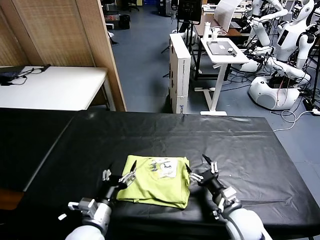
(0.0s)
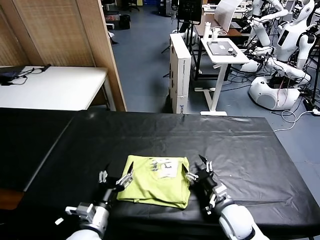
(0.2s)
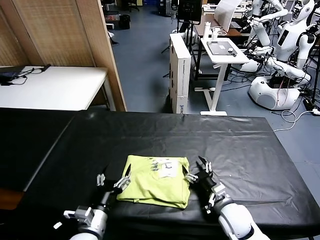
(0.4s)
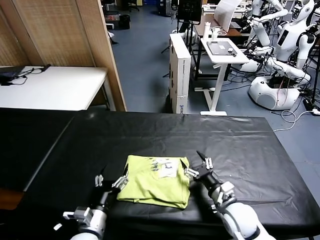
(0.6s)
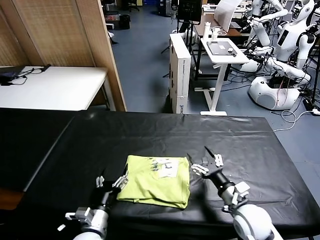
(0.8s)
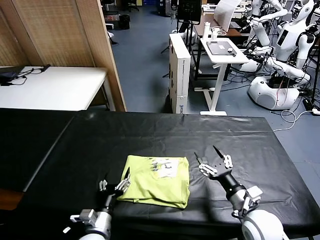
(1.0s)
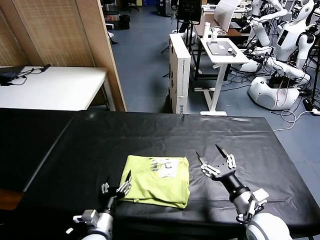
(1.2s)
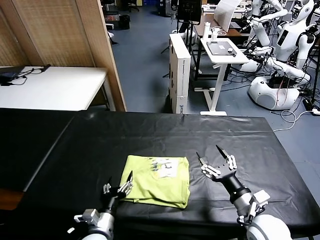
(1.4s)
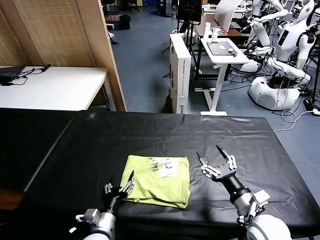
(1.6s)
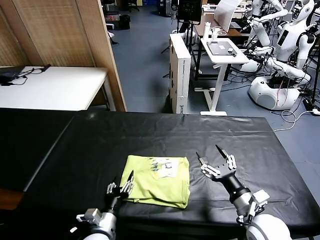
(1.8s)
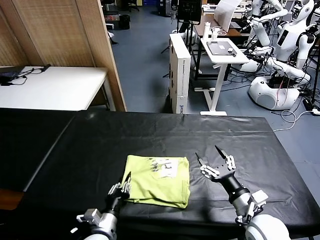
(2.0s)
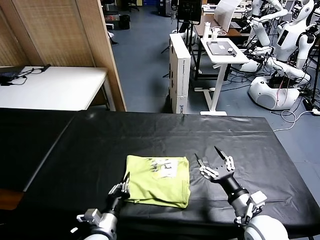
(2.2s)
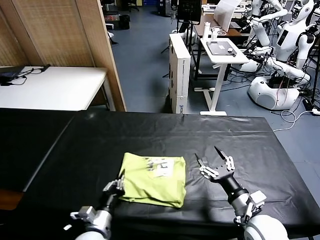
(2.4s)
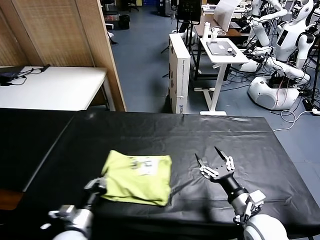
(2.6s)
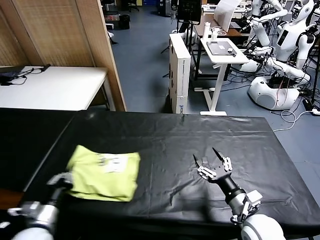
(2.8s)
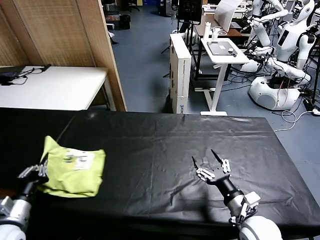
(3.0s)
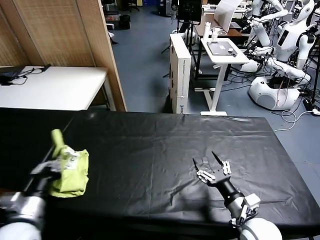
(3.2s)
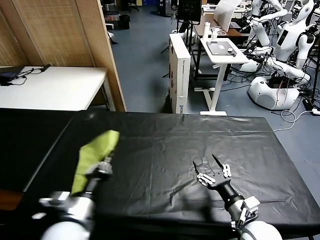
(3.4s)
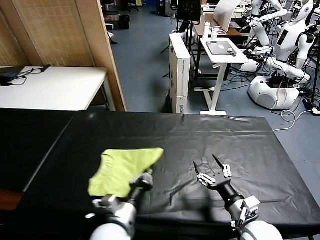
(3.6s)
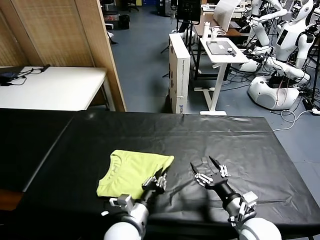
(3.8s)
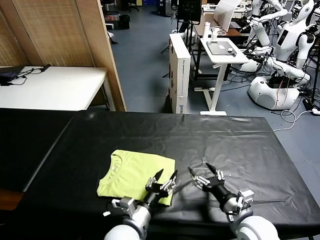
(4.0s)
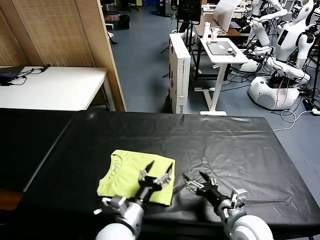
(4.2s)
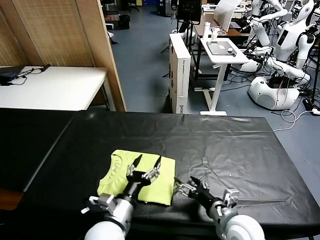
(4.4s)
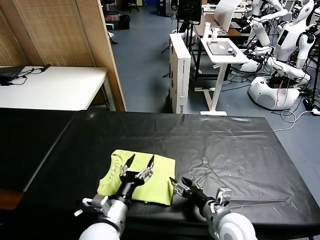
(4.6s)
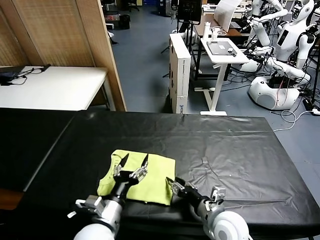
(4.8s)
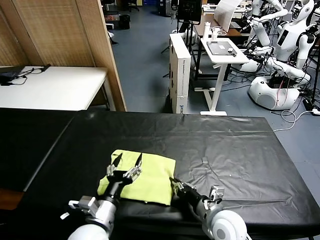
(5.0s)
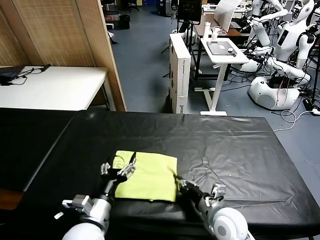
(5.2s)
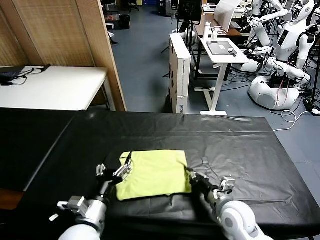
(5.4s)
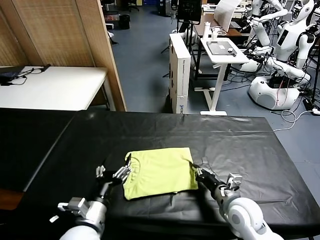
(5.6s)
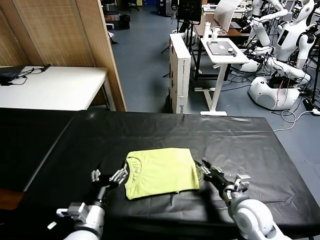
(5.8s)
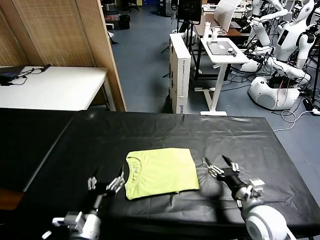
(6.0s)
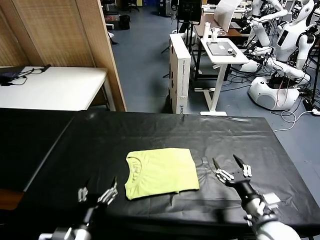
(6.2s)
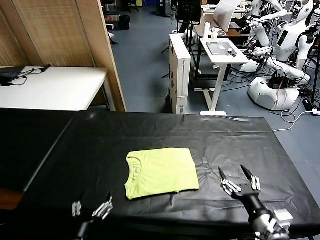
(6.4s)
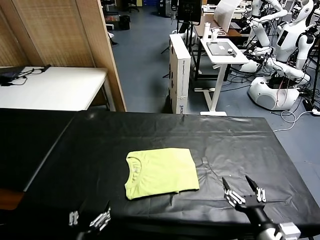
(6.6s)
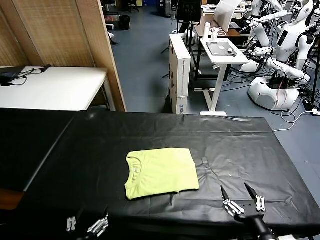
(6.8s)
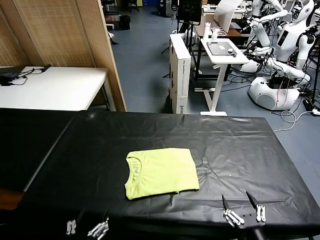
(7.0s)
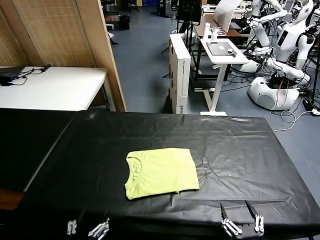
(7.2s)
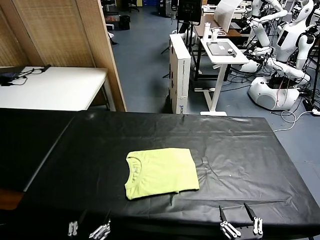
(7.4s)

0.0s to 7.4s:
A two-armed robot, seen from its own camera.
Task of the whole recording: fold and organize the clothes.
Step, 0.0s to 4.0s: Flip the folded clothes over with left gripper.
Step, 4.2s to 5.8s: Drag the clothes to the center of the table.
0.0s to 1.4s: The right gripper is displaced upward by some 5 cm, while the left gripper heads downward, covering roughly 10 cm.
1.4s to 3.0s: The left gripper travels to the left and upward by about 25 cm, and closes.
3.0s to 4.4s: The left gripper goes some 25 cm to the right, and opens up.
4.4s to 6.0s: The left gripper moves to the left, approximately 5 cm. Meanwhile the right gripper travels to the right by about 5 cm, and closes and opens again.
6.0s to 7.4s: The right gripper is displaced backward by some 20 cm. The left gripper shifts approximately 10 cm backward.

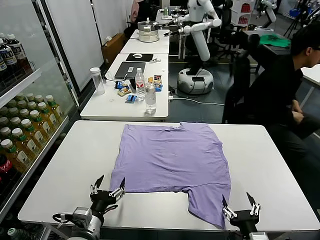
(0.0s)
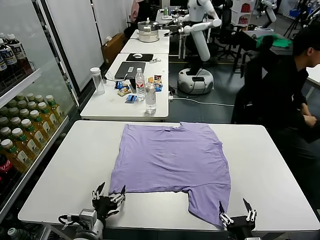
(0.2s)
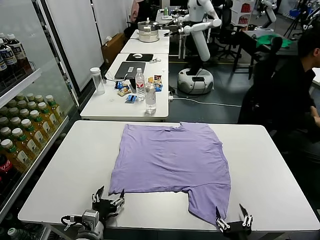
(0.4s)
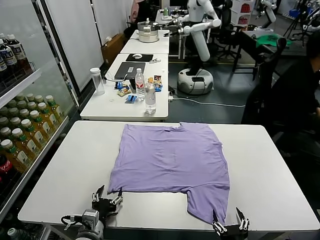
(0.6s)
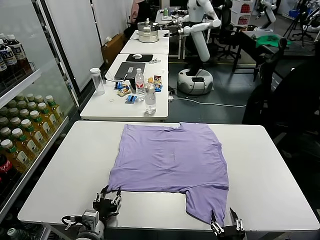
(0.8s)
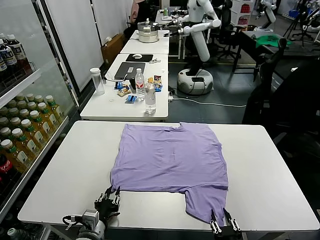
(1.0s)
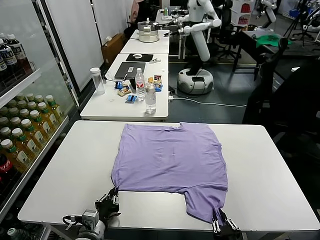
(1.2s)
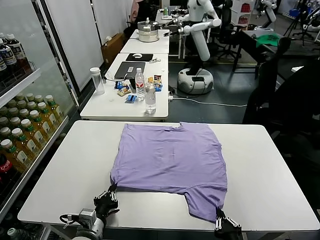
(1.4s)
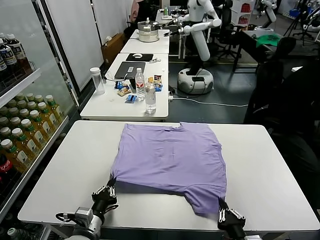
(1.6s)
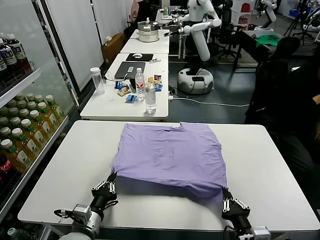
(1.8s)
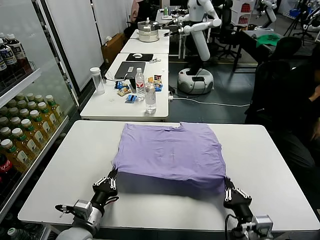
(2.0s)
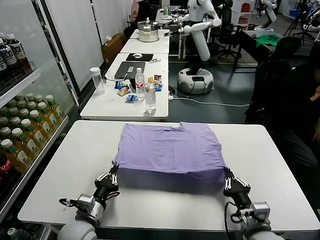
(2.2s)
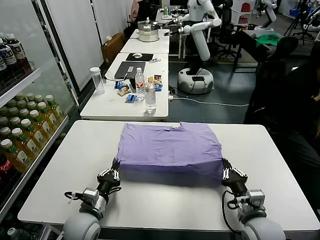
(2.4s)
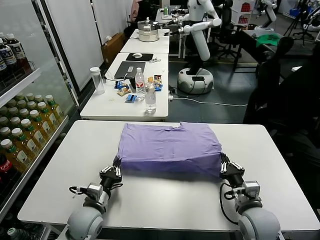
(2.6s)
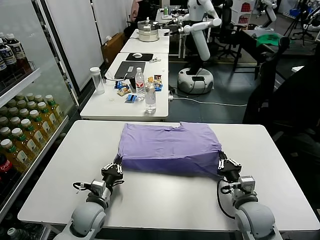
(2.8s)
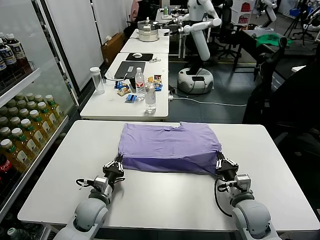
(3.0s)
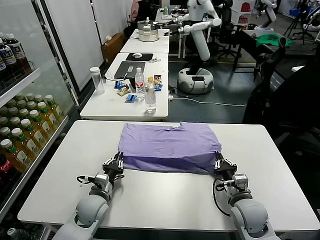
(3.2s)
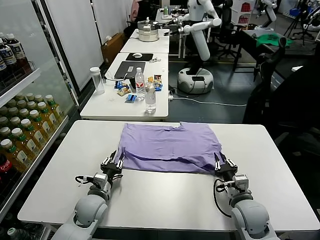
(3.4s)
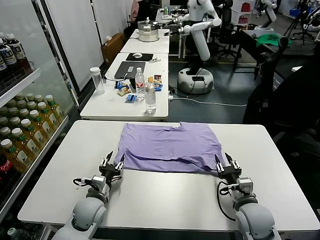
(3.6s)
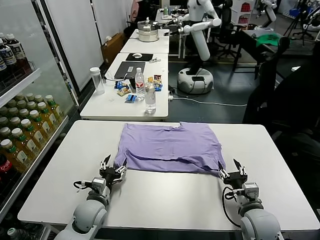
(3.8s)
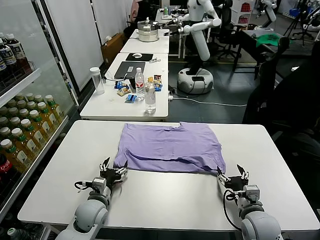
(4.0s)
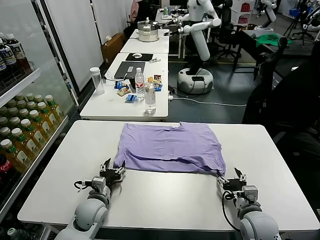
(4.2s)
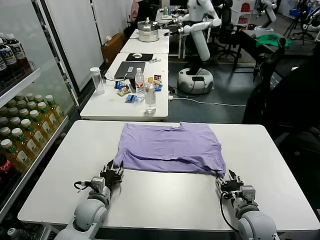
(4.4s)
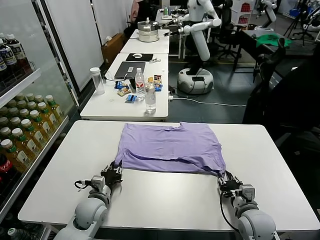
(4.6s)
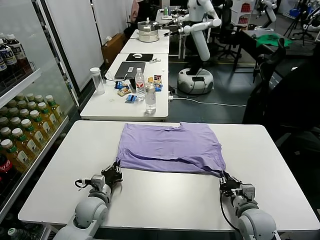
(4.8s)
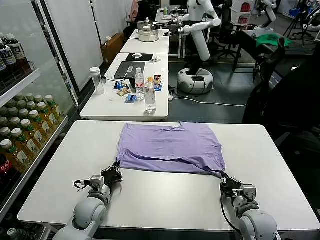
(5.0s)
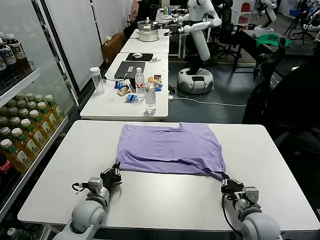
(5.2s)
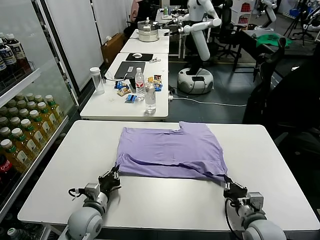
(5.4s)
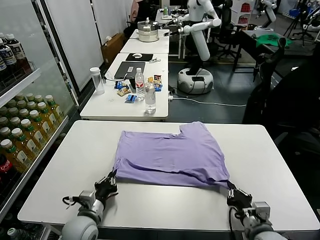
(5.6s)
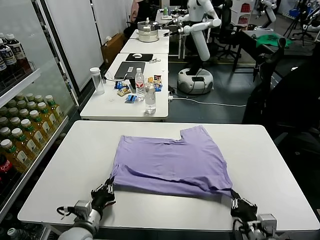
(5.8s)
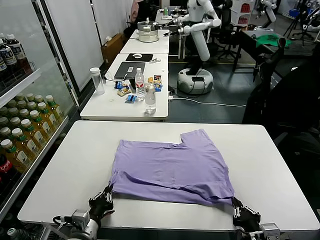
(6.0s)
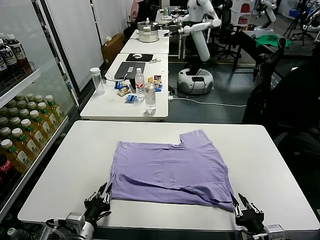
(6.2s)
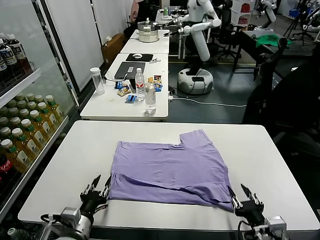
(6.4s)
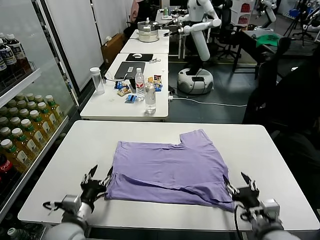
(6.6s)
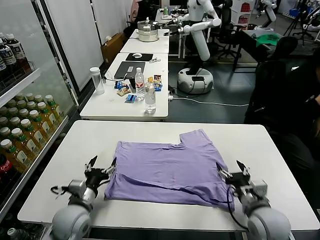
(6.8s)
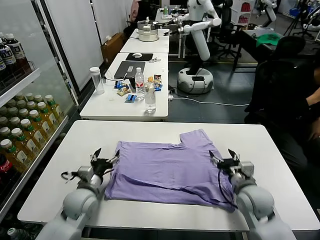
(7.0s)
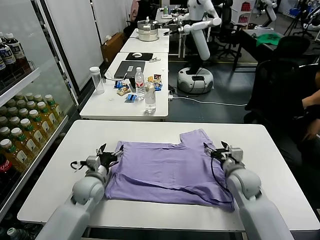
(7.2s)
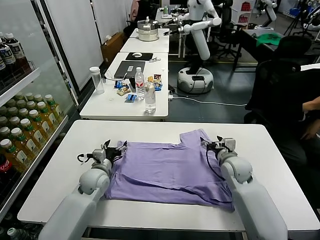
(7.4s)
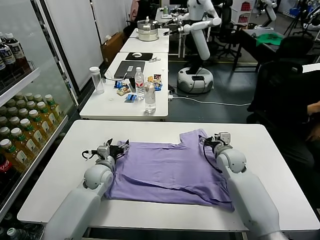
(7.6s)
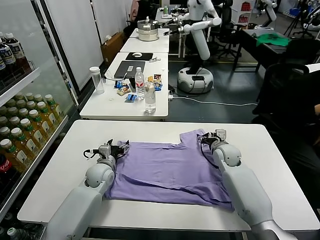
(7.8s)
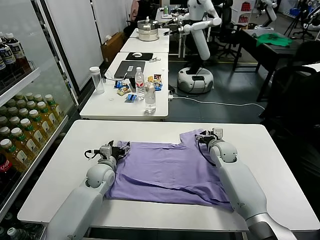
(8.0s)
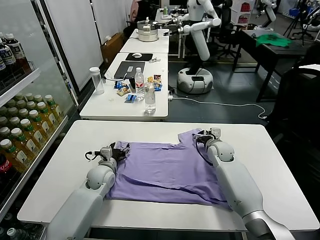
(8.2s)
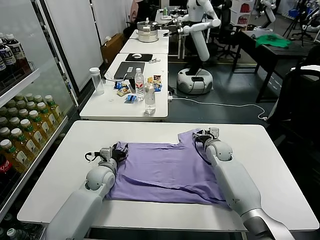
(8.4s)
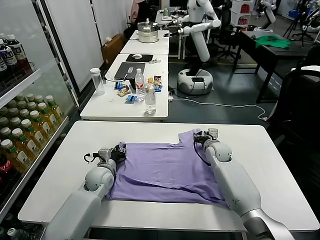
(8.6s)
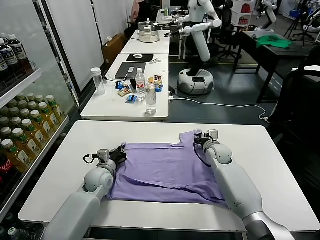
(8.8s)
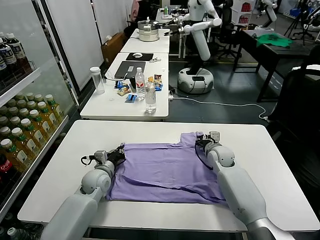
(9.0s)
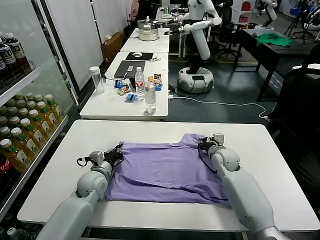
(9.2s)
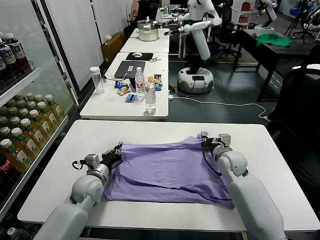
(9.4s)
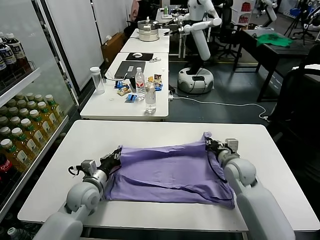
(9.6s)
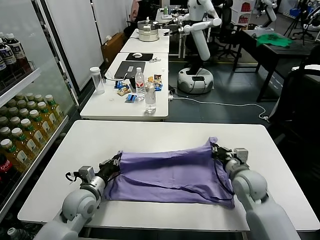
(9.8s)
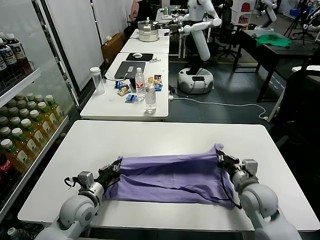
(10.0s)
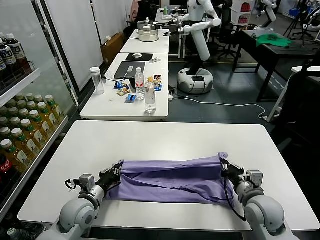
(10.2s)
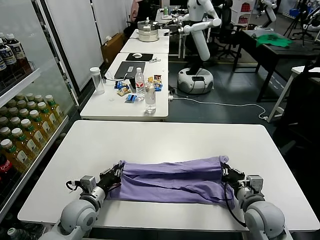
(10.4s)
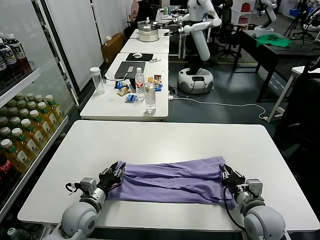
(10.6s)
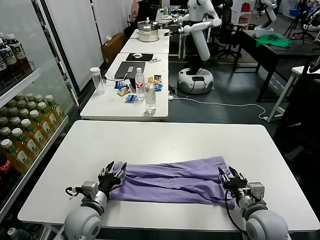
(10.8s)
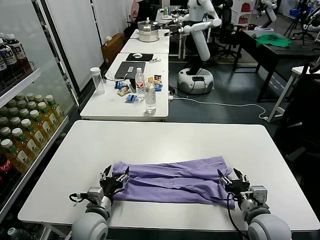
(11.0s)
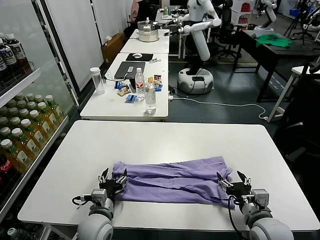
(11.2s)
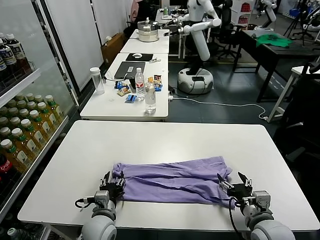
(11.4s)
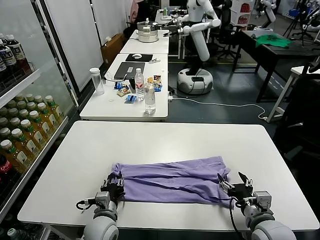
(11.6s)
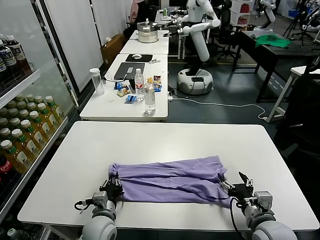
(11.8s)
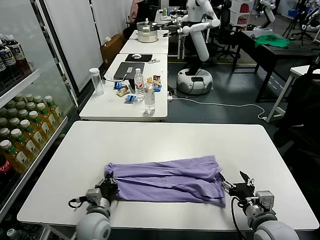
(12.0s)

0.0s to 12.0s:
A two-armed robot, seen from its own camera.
Task of the whole recording: fold and organize the clothes.
Step, 0.0s to 1.4s: use both grippers simultaneously to clamp the lower edge of the clothing fabric.
Step, 1.6s to 3.6s: use both grippers to drag the lower edge of the fabric forward and fold it over the upper edge.
Step, 3.8s to 6.4s: Drag the clothes downward with both gripper.
Step, 6.6s to 9.2s: use both grippers simultaneously to clamp the upper edge of the clothing fabric.
Step, 9.6s to 10.6s: use both grippers to drag the upper edge of the fabric backward and fold it over the lower edge.
Step, 10.8s to 11.8s: use the left gripper to clamp the left edge of the fabric.
1.6s to 3.0s: The grippers both shift forward by some 15 cm.
3.0s to 4.4s: The right gripper opens; the left gripper opens up.
4.4s to 6.0s: The left gripper is displaced backward by approximately 15 cm, and closes its fingers, while the right gripper heads backward and upward, covering approximately 15 cm, and closes its fingers.
6.0s to 7.6s: The grippers both shift forward by approximately 30 cm. The right gripper opens up; the left gripper opens.
7.6s to 9.0s: The right gripper closes its fingers. Meanwhile the left gripper closes.
9.0s to 10.4s: The right gripper goes roughly 25 cm backward, while the left gripper shifts approximately 15 cm backward.
10.4s to 12.0s: The left gripper shifts by approximately 5 cm, and opens and closes again. The right gripper shifts about 5 cm backward, and opens.

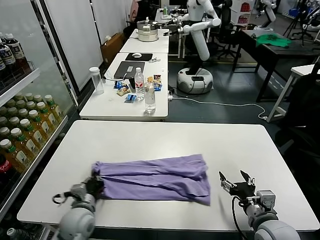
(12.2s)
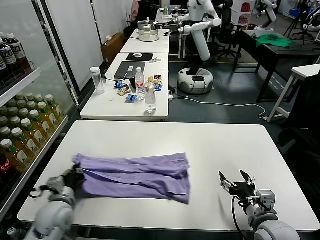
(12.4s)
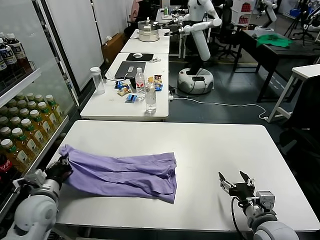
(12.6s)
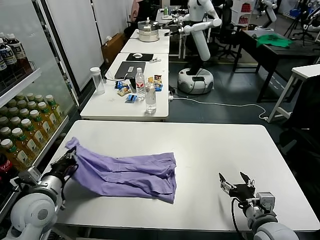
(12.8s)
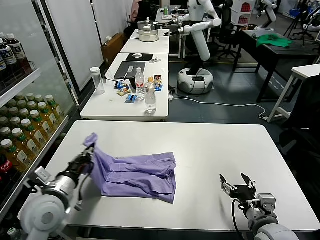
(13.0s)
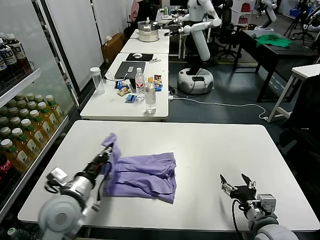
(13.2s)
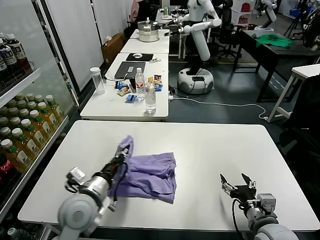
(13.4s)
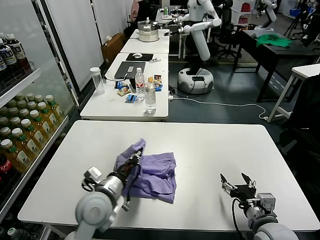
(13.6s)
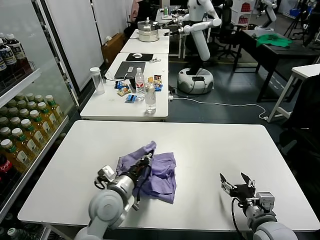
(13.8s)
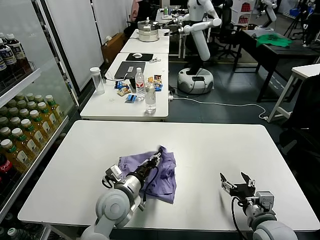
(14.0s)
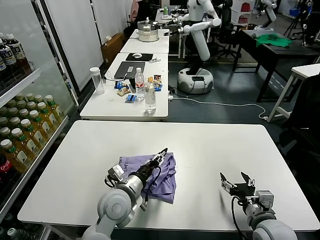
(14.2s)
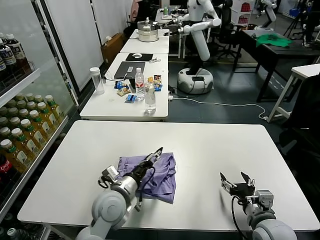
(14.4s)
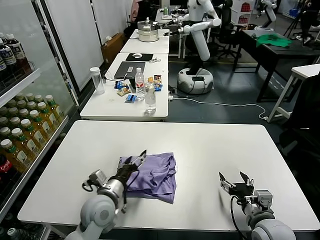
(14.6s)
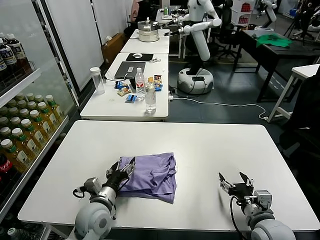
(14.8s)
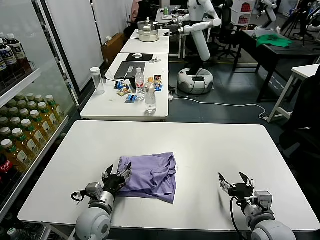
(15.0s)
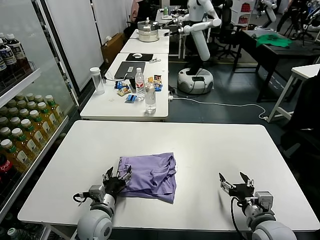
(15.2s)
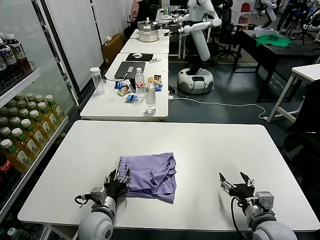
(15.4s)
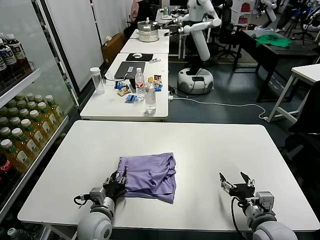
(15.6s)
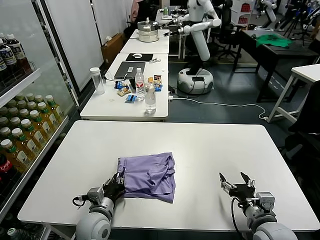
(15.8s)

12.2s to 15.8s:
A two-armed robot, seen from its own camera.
Task of the whole recording: fold and organize the clothes.
Step, 12.2s to 14.2s: use the left gripper to drag the left edge of the fabric to the left and folds it over the right edge.
12.2s to 14.0s: The left gripper moves to the right and upward, about 15 cm.
14.0s to 15.8s: The left gripper moves downward and to the left, roughly 10 cm, and opens, then closes again.
